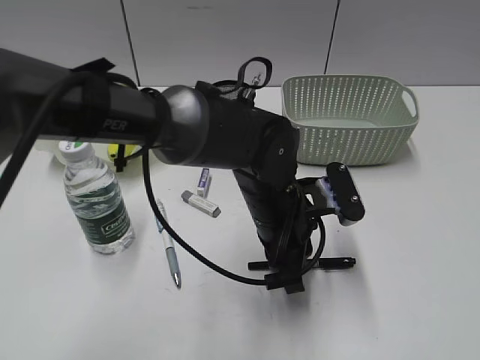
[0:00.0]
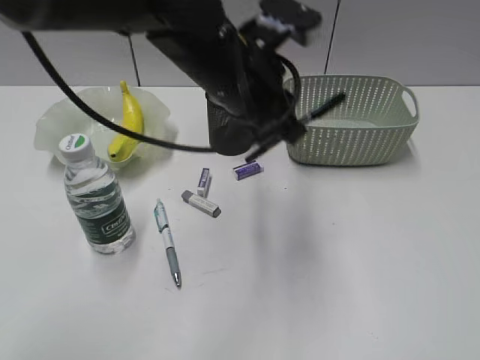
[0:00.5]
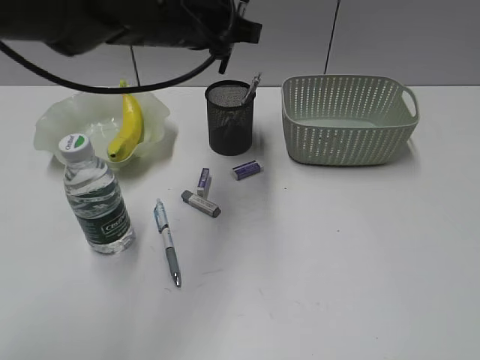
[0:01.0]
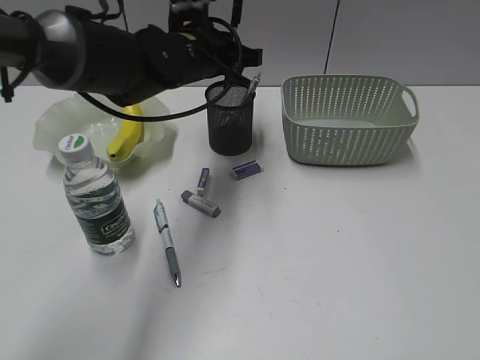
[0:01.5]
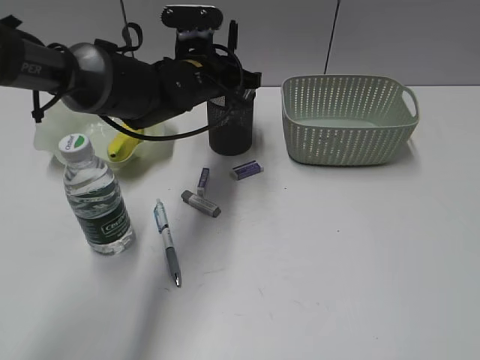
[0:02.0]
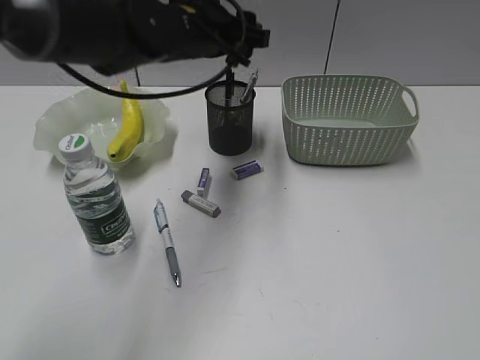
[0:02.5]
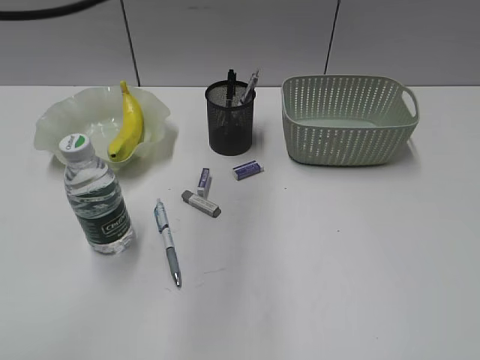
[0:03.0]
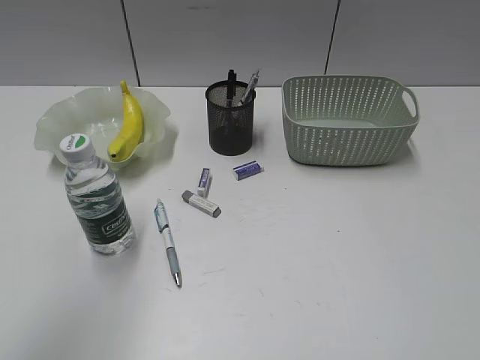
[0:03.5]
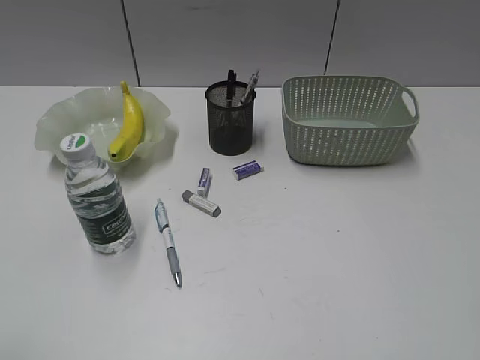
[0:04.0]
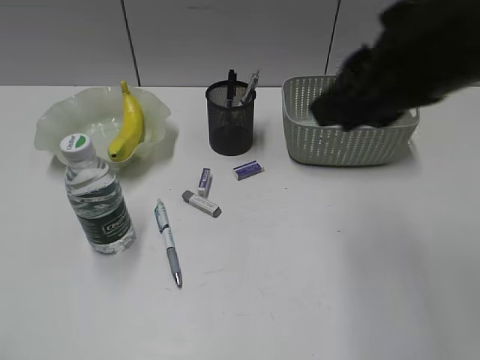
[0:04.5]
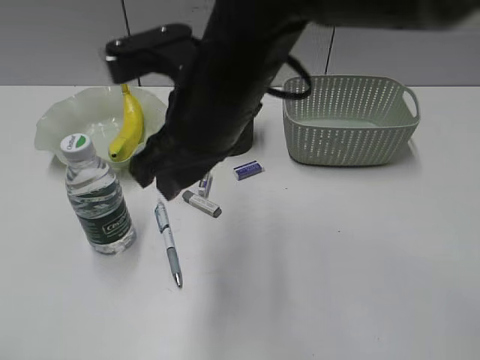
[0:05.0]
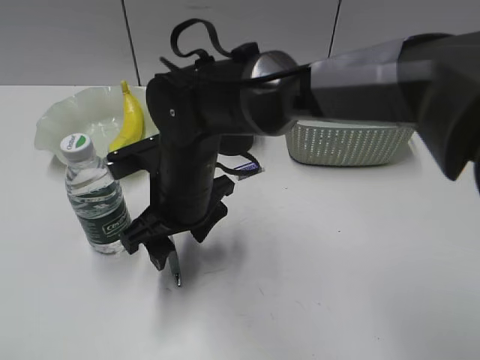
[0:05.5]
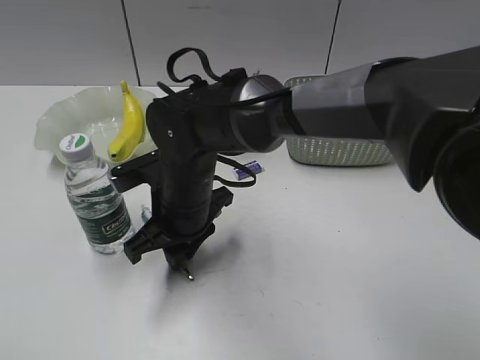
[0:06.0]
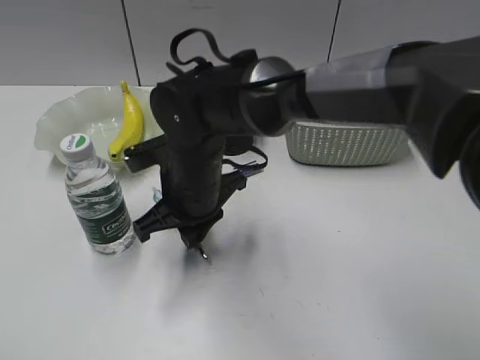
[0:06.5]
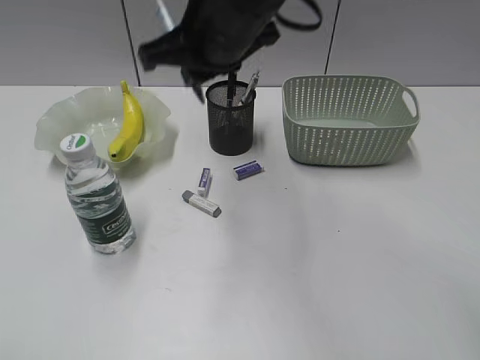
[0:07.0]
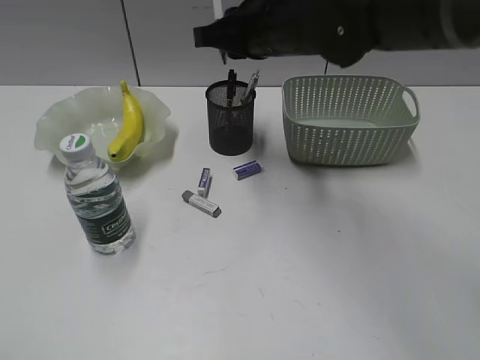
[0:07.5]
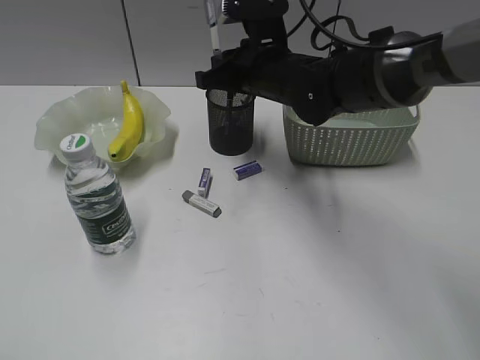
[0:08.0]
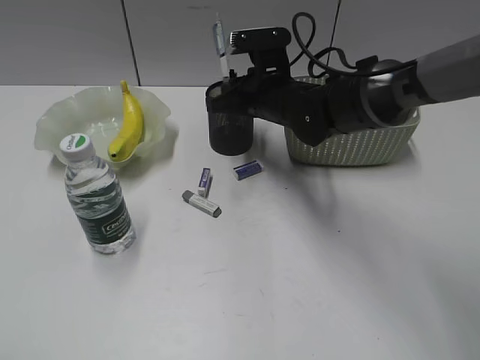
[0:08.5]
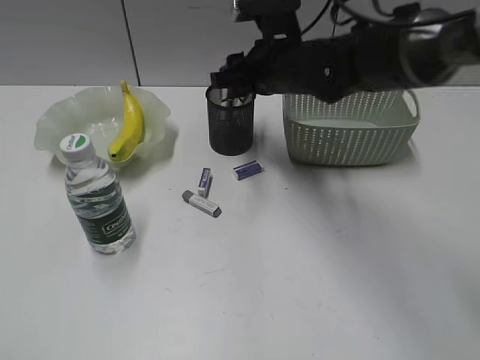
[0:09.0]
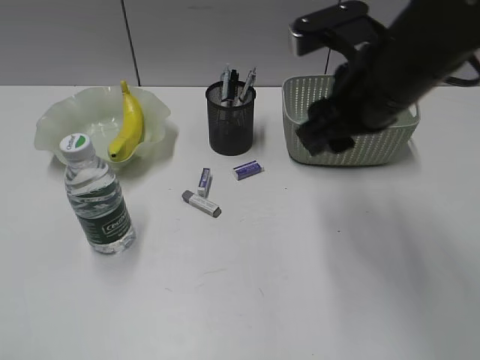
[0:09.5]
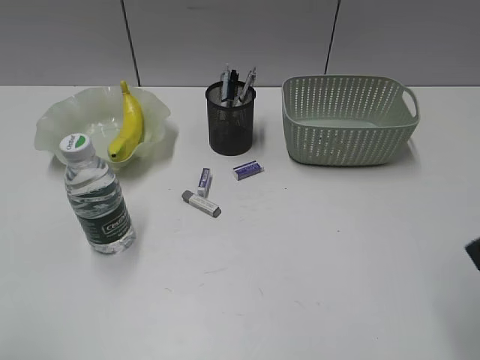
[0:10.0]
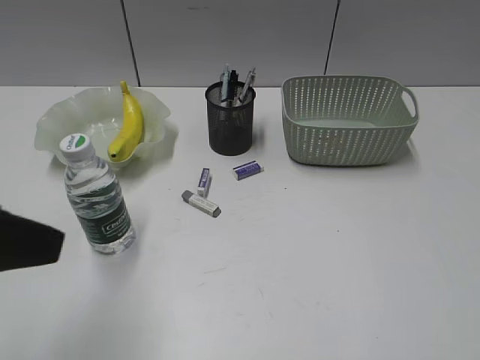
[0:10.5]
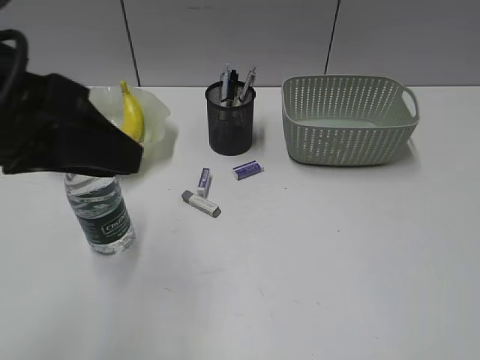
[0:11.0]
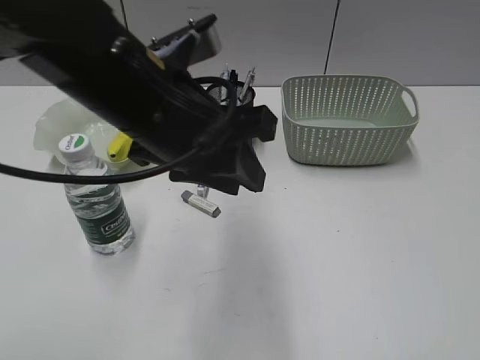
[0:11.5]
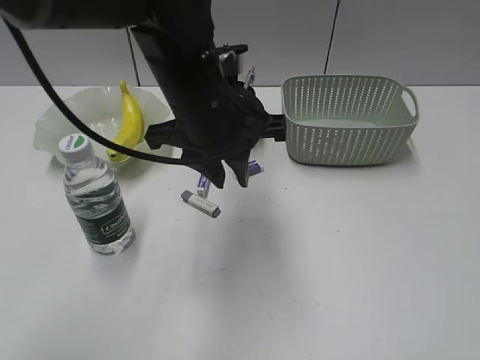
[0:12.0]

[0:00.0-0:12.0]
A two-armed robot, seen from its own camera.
Step, 0:00.5 to 0:02.0: Place the black pen in pen holder with left gripper.
Step, 0:02.5 to 0:06.0: Grasp the blue pen with right gripper.
Step, 0:06.5 to 0:08.5: Place the blue pen in pen holder with right gripper.
0:00.0 to 0:02.0: The left gripper moves forward and to the left, about 20 cm.
0:02.0 to 0:04.0: The left gripper shifts roughly 50 cm backward and to the left, and opens up. The right gripper changes place by some 5 cm.
0:04.0 to 0:06.0: The right gripper goes approximately 50 cm to the left, forward and downward, and opens and closes again; the left gripper closes.
0:06.0 to 0:08.0: The right gripper shifts approximately 20 cm forward, to the right and upward, and closes up.
0:08.0 to 0:10.0: The right gripper goes some 35 cm backward and to the right, and opens its fingers.
0:10.0 to 0:12.0: The right gripper heads backward and to the right, covering about 15 cm; the left gripper goes some 40 cm forward and to the right.

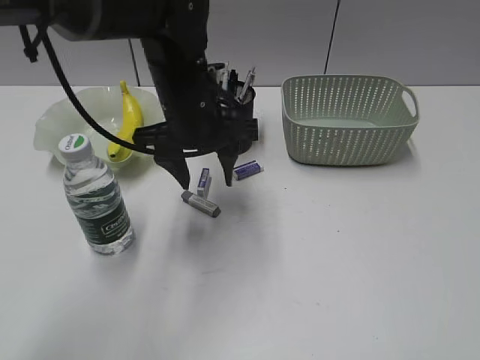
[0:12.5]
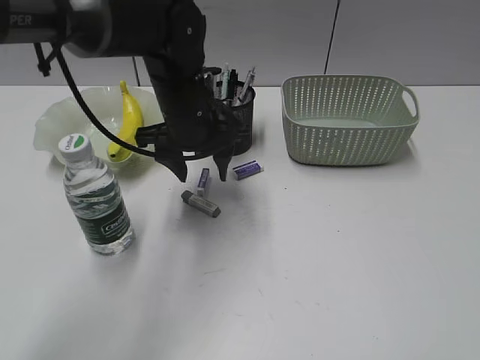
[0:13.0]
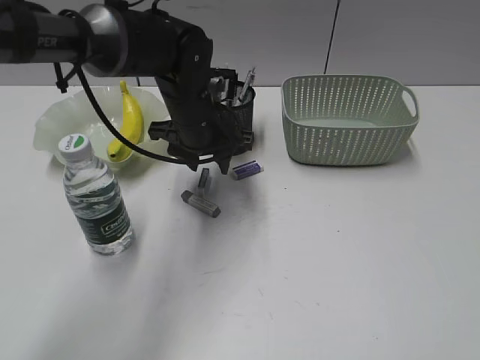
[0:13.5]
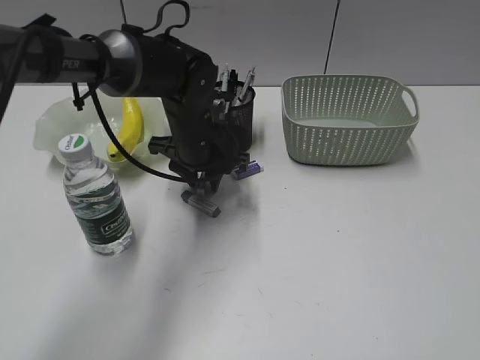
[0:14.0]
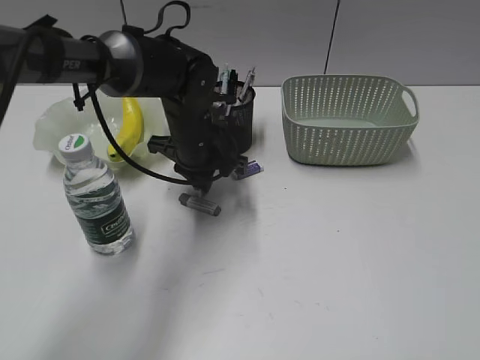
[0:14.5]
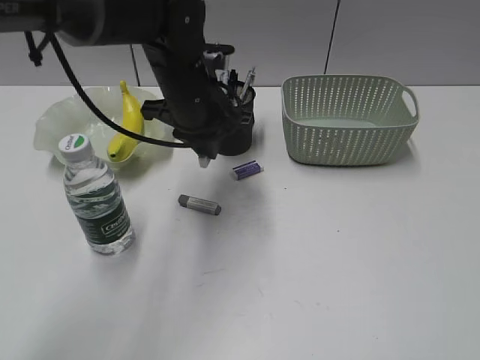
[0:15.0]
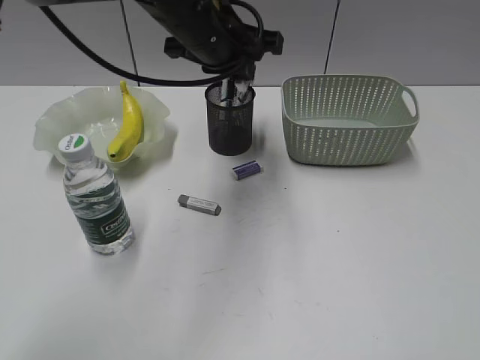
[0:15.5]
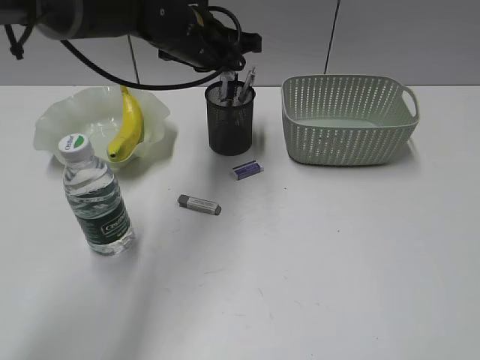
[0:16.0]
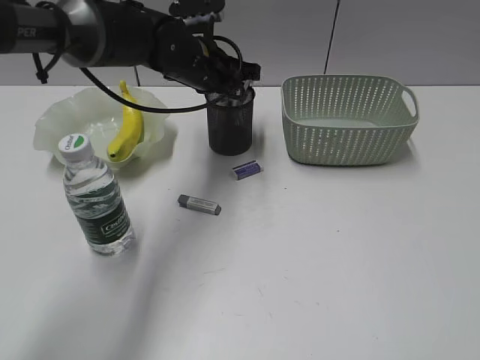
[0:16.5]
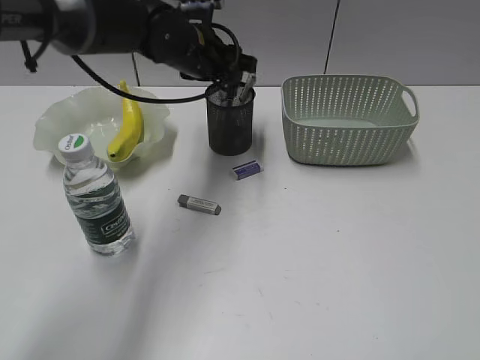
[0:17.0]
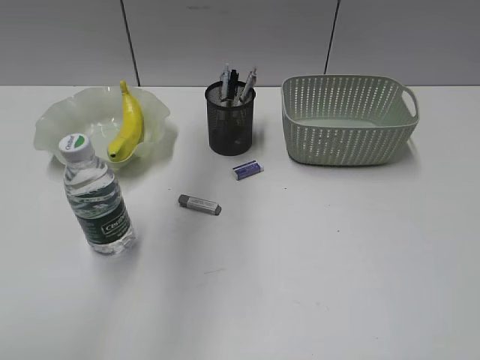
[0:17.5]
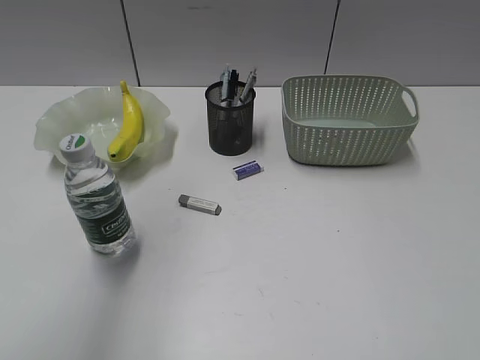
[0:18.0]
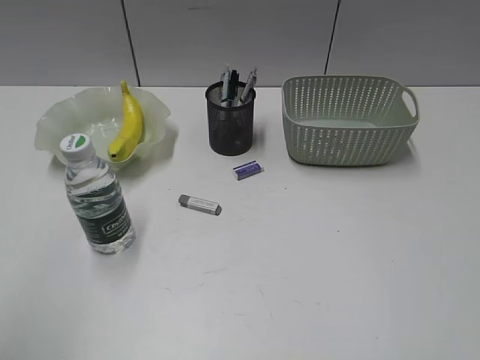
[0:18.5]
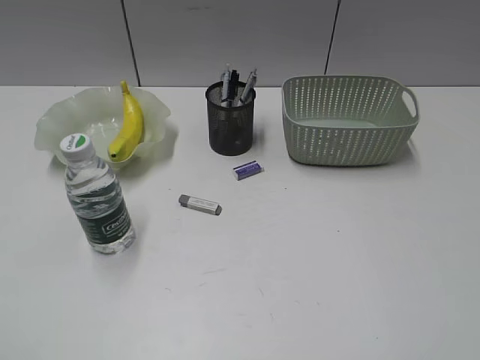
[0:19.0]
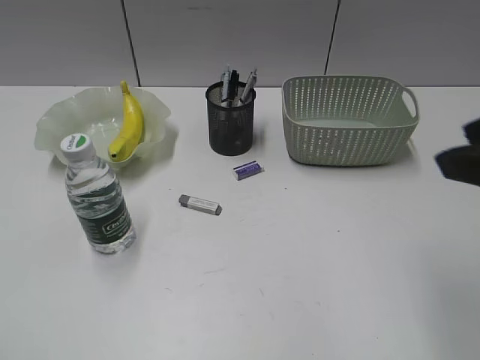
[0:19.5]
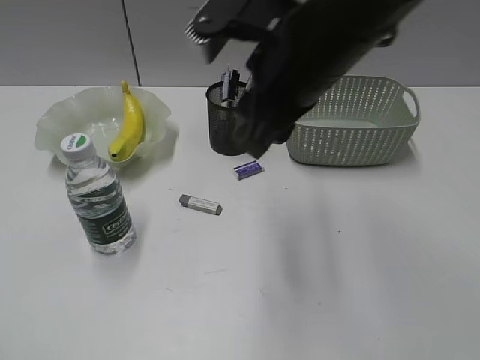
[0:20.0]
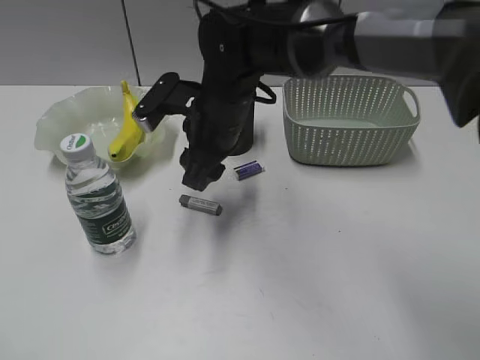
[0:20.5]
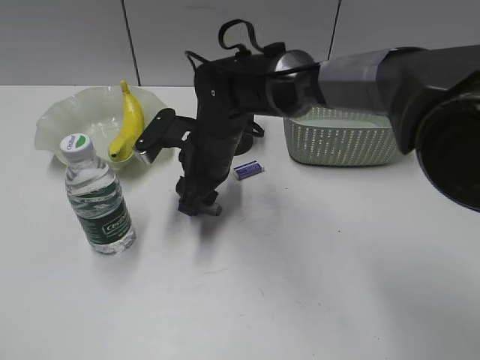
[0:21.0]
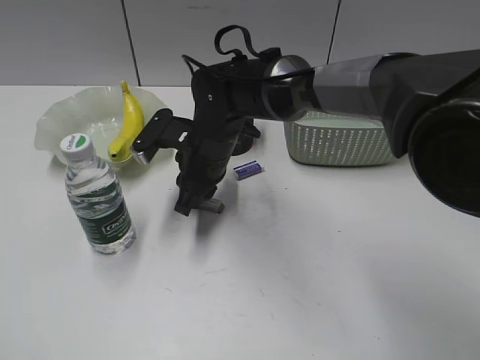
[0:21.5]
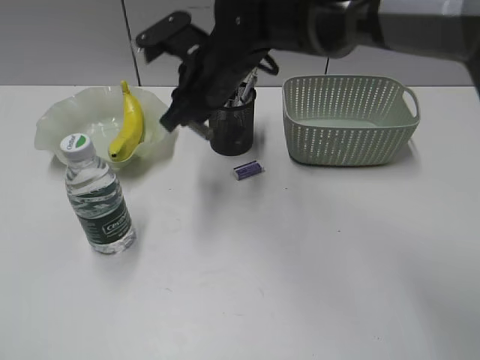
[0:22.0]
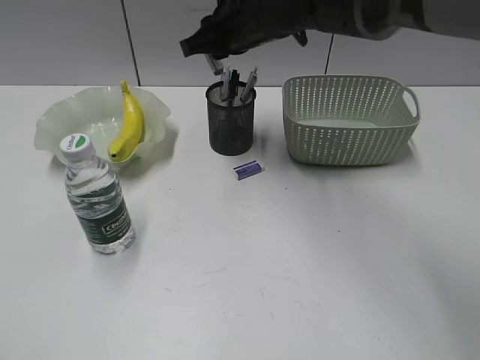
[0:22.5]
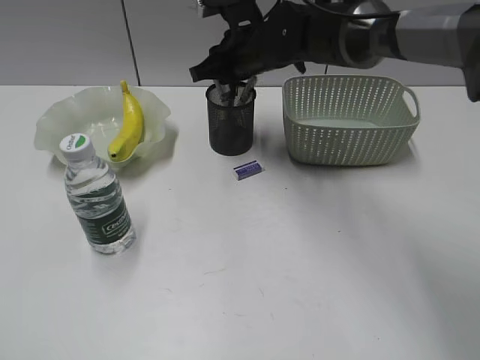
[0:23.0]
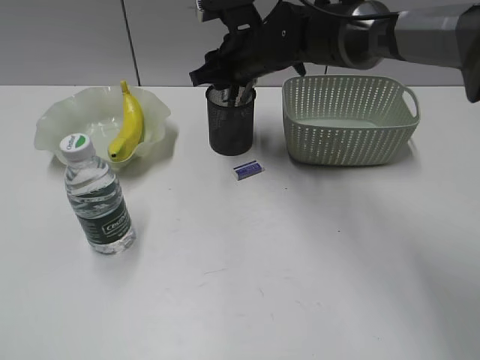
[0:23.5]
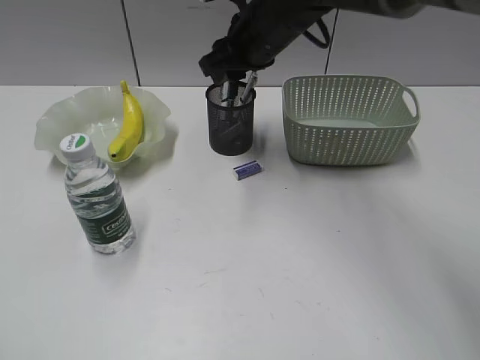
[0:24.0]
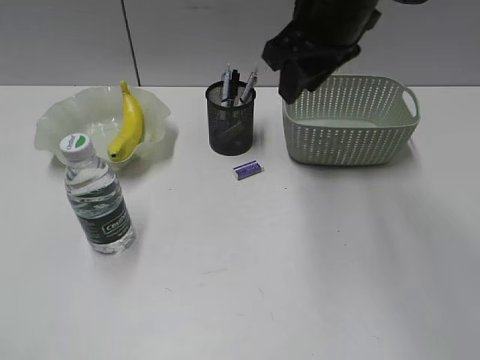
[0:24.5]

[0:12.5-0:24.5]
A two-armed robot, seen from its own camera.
Step, 0:14.5 to 0:16.5: Place the eraser in pen holder with left gripper.
Step, 0:17.0 to 0:21.5: Grasp the eraser with right gripper.
Step, 0:22.0 to 0:23.5: Place the eraser in pen holder with right gripper.
0:12.5 to 0:14.5: The left gripper goes roughly 10 cm downward, and closes up.
0:14.5 to 0:16.5: The left gripper moves upward and forward, roughly 10 cm.
0:16.5 to 0:18.5: The left gripper travels backward, to the left and upward by some 50 cm, and opens its fingers.
0:18.5 to 0:20.5: The left gripper travels downward and backward by approximately 10 cm; the right gripper goes roughly 50 cm forward and to the left.
0:20.5 to 0:22.5: The right gripper shifts approximately 10 cm forward and upward, and closes its fingers.
0:22.5 to 0:24.5: The right gripper goes about 15 cm backward, upward and to the right, and opens up.

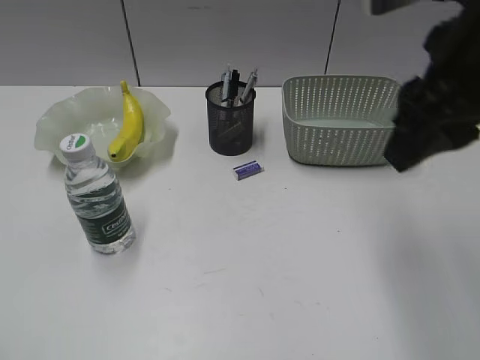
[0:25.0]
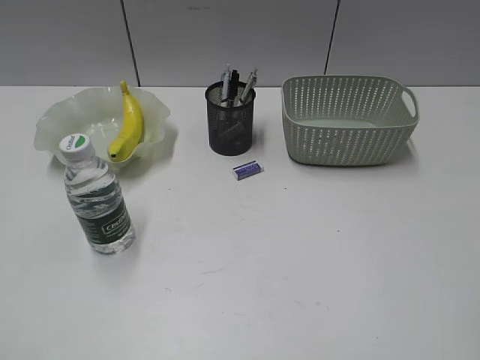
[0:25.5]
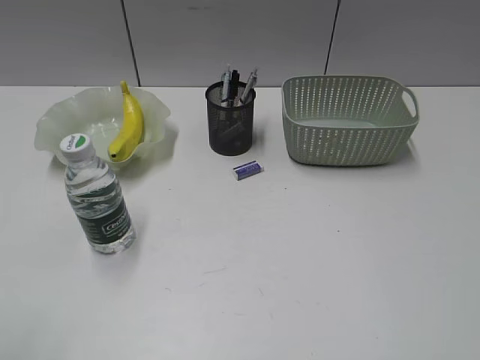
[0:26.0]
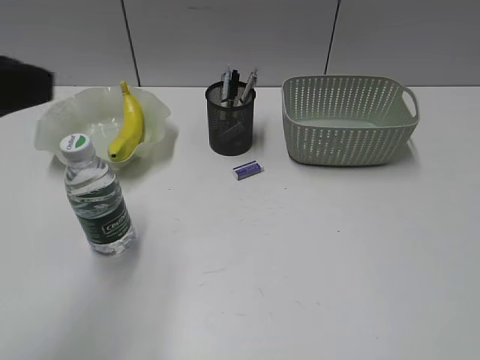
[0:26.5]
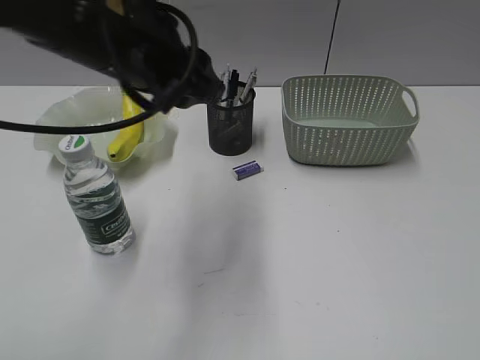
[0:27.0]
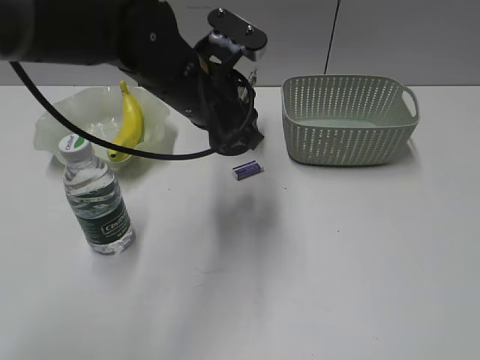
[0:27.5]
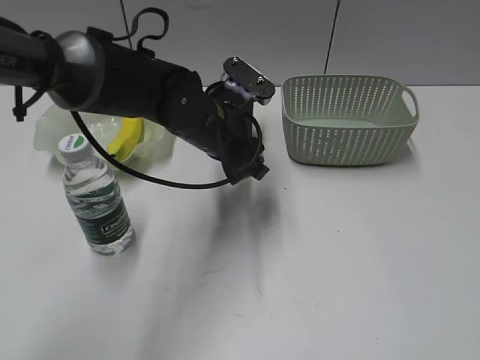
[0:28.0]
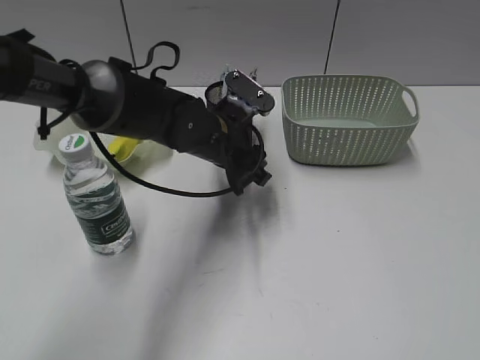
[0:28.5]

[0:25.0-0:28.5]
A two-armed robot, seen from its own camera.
0:25.0 to 0:27.0: The right gripper shifts about 30 cm backward and to the right. Meanwhile the left gripper heads forward and to the right, covering some 35 cm.
0:27.0 to 0:28.5: The left gripper goes roughly 20 cm downward, forward and to the right.
